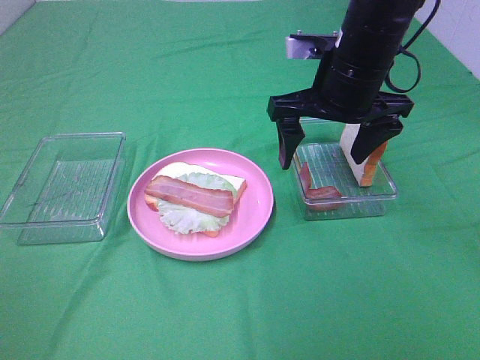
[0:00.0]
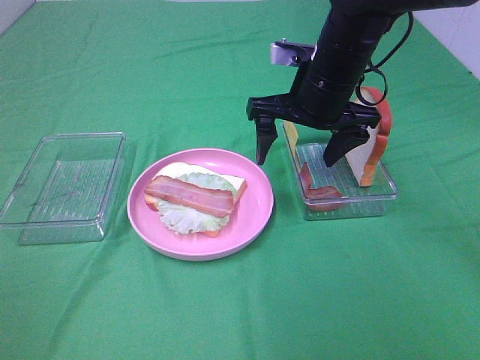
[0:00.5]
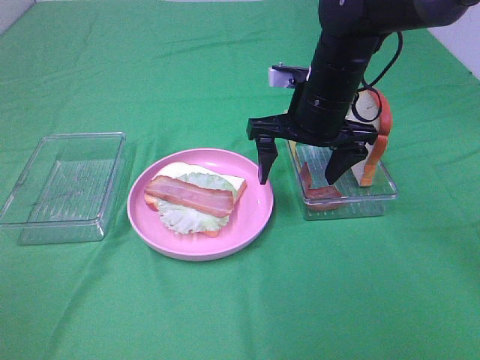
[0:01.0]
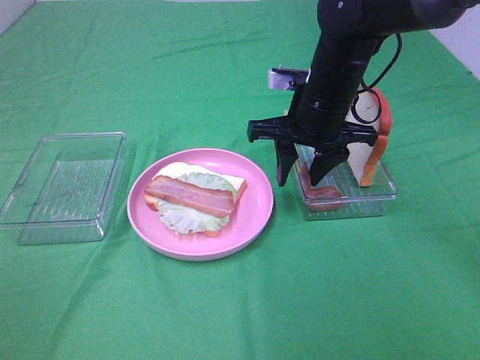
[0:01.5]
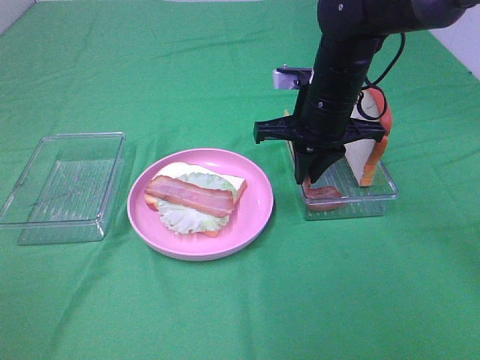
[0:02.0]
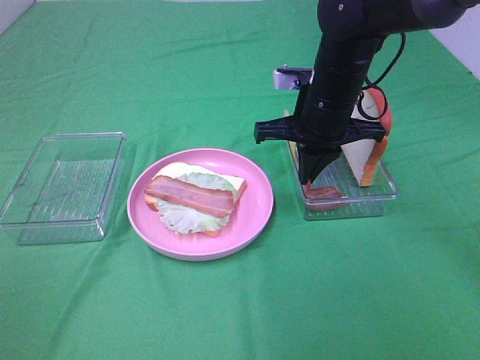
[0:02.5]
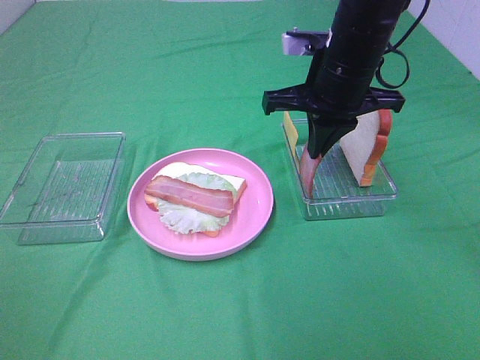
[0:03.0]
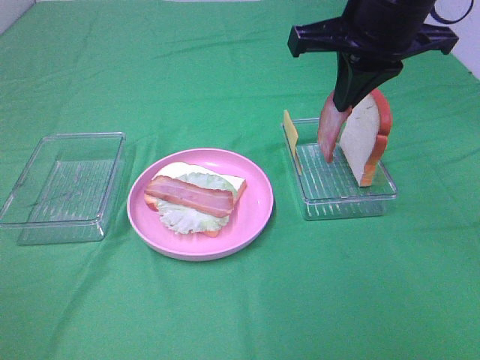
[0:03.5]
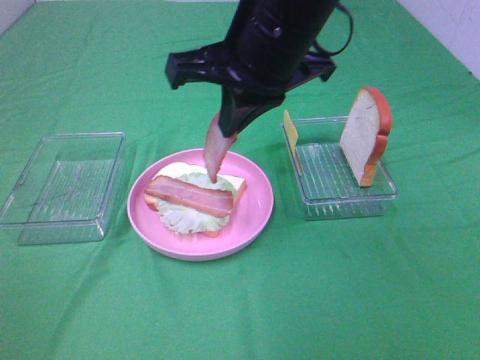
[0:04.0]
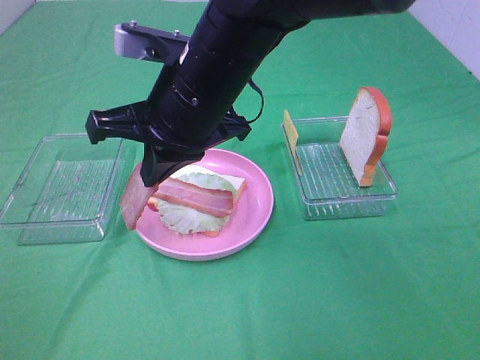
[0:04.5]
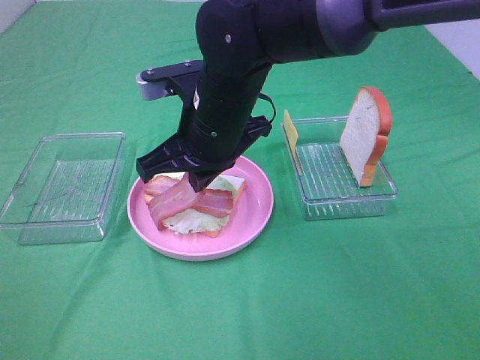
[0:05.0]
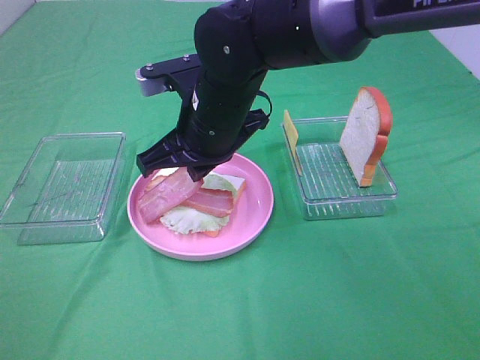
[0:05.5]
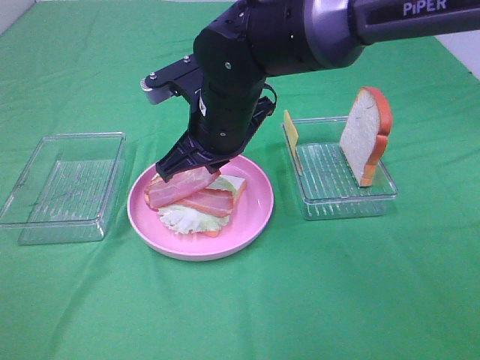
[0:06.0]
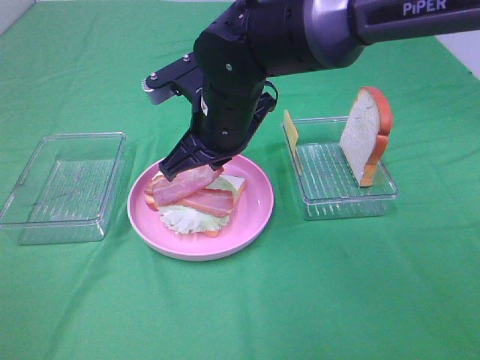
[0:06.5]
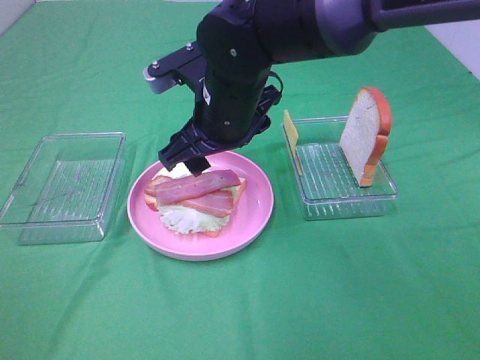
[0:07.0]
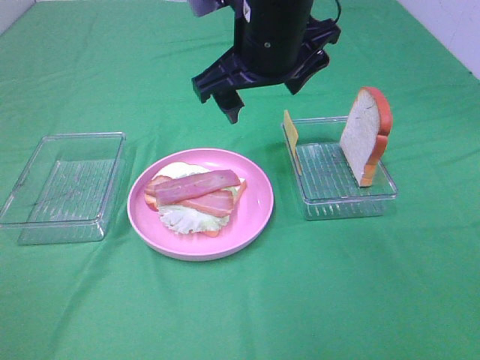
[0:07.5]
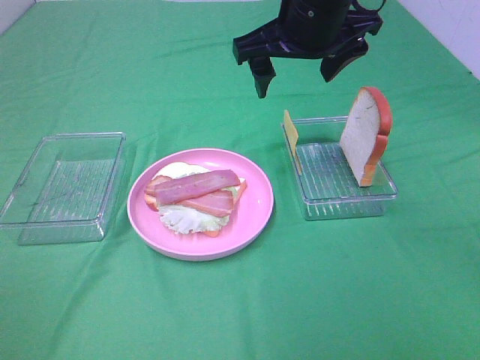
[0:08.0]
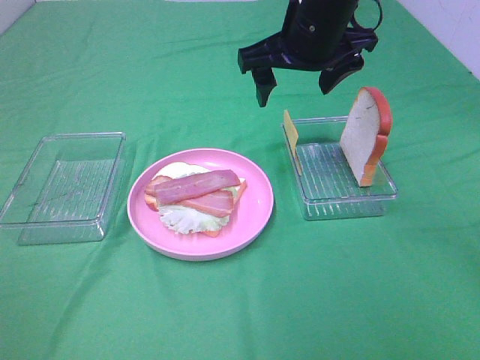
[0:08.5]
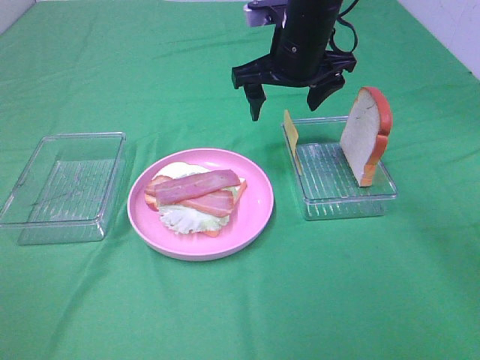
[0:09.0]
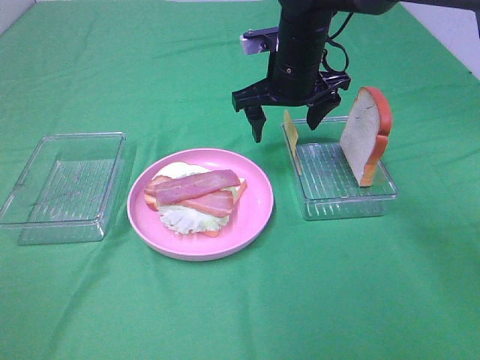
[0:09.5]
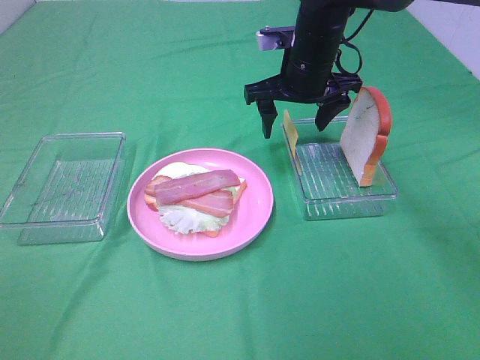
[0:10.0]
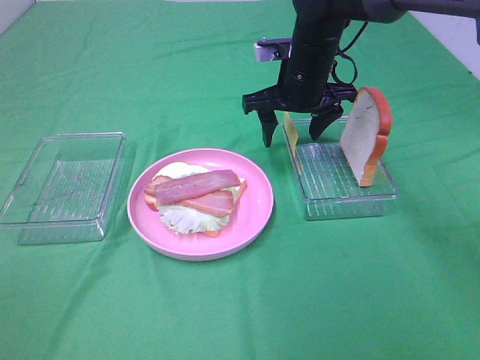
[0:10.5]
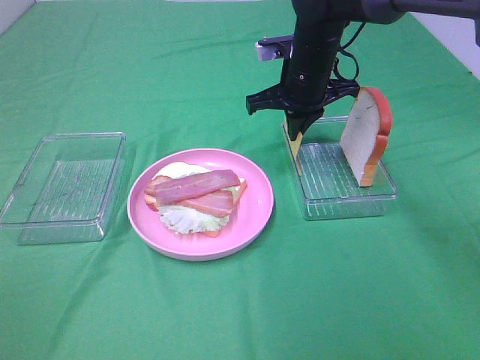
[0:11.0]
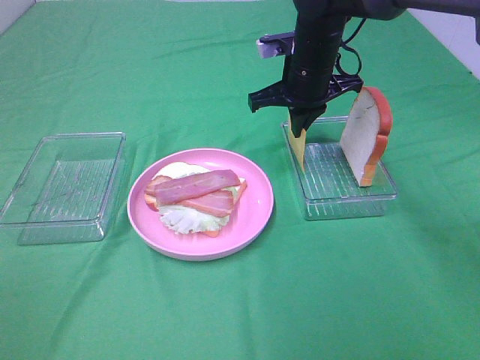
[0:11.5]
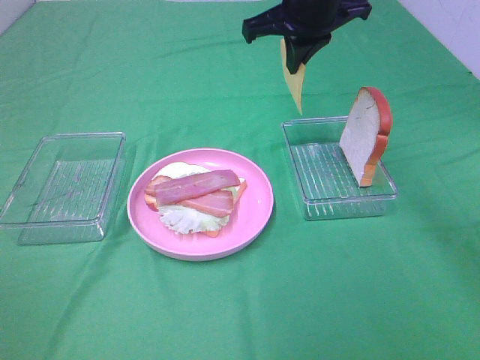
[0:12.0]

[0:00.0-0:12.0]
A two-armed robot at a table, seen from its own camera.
Task of the whole recording: Make sandwiches.
Step, 0:00.0 to 0:02.0: Right hand:grab the bacon.
Step, 0:02.5 to 0:06.5: Right hand:place bacon on bacon.
Step, 0:07.0 to 0:11.0: Right hand:grab the cheese slice.
0:00.0 to 0:02.0: The right gripper shifts about 5 cm downward, and closes.
0:02.0 to 0:04.0: The right gripper goes roughly 15 cm upward, to the left and backward.
0:04.0 to 0:06.0: The right gripper moves downward, approximately 10 cm.
0:06.0 to 0:08.0: The right gripper travels upward and to the right by roughly 15 cm, and opens its fingers.
0:08.0 to 0:10.0: The right gripper travels downward and forward by some 10 cm.
0:10.0 to 0:12.0: The right gripper travels upward by approximately 10 cm, and closes.

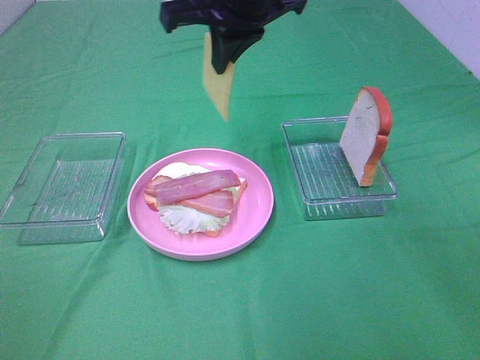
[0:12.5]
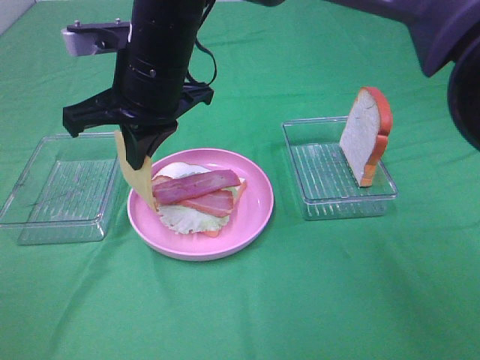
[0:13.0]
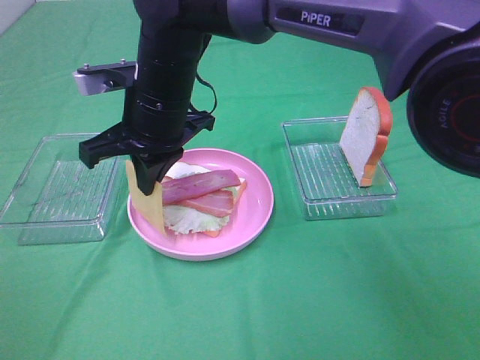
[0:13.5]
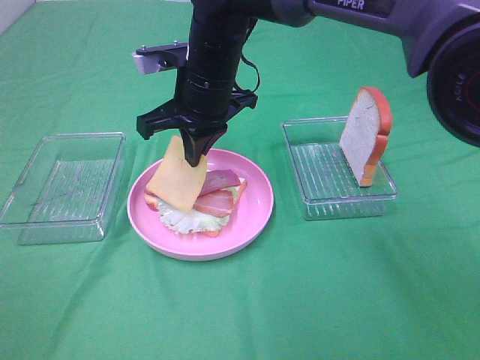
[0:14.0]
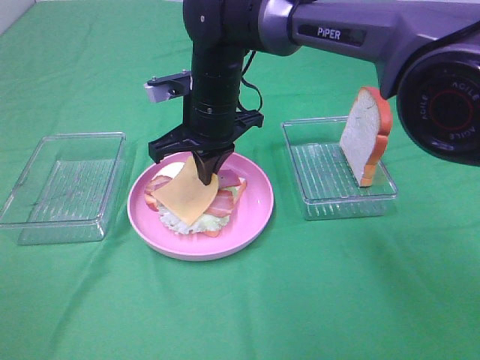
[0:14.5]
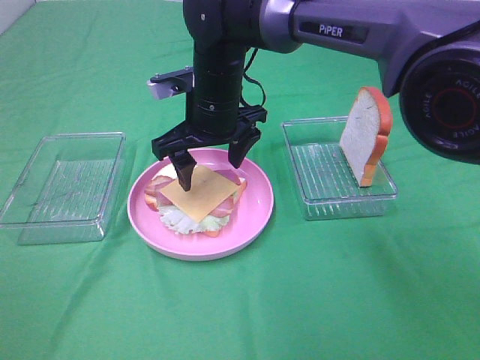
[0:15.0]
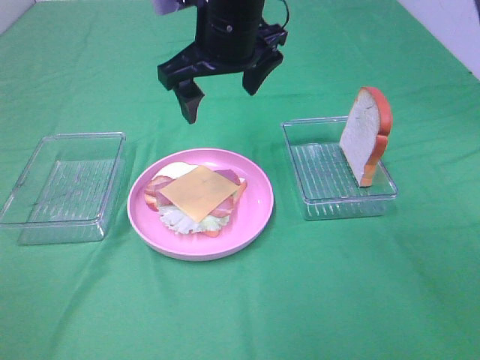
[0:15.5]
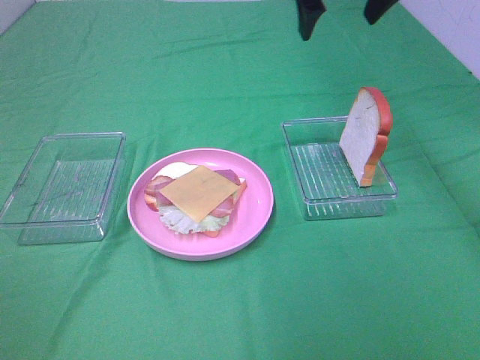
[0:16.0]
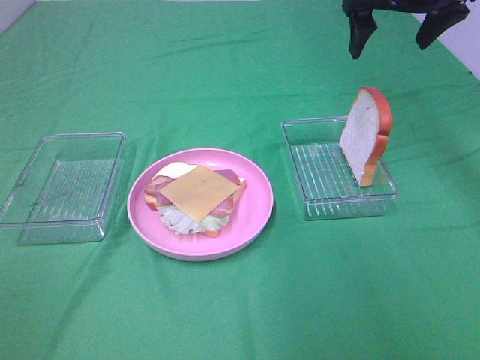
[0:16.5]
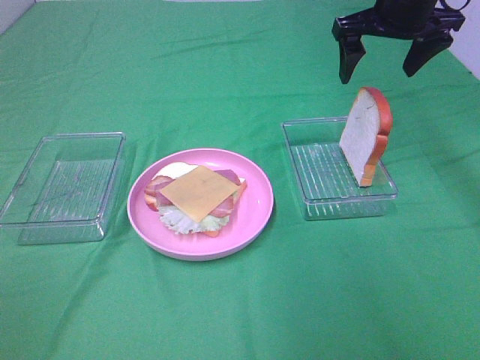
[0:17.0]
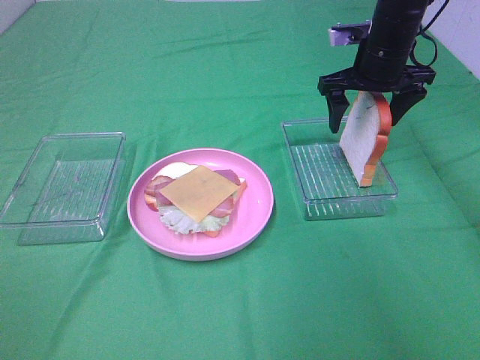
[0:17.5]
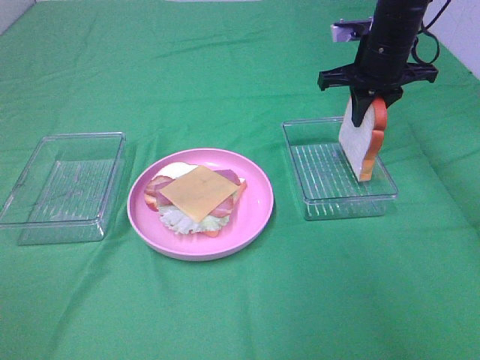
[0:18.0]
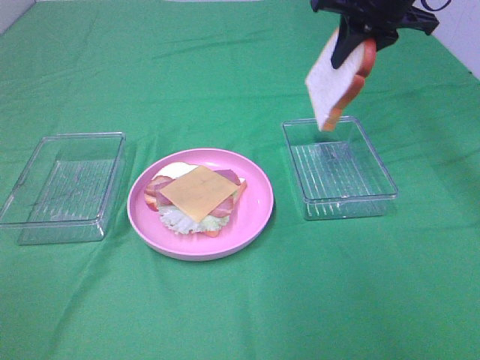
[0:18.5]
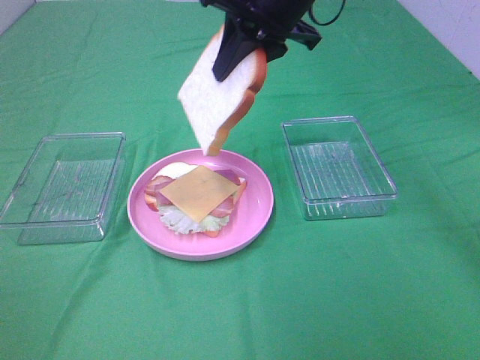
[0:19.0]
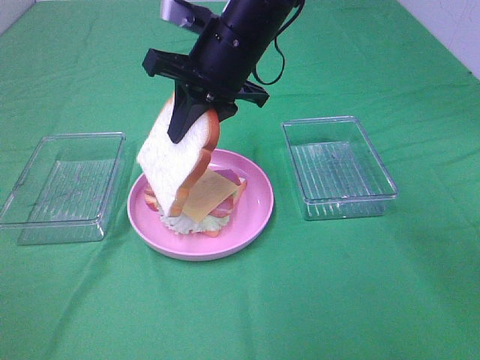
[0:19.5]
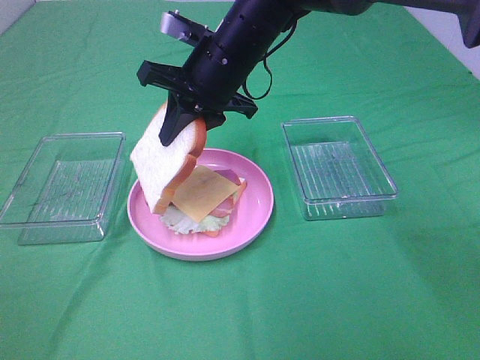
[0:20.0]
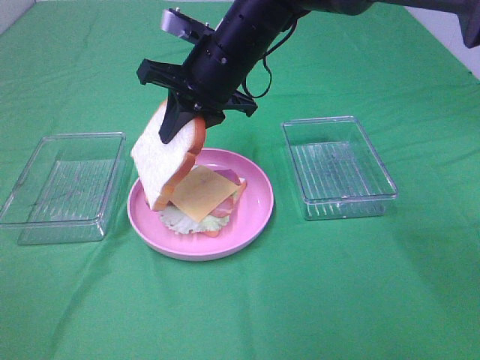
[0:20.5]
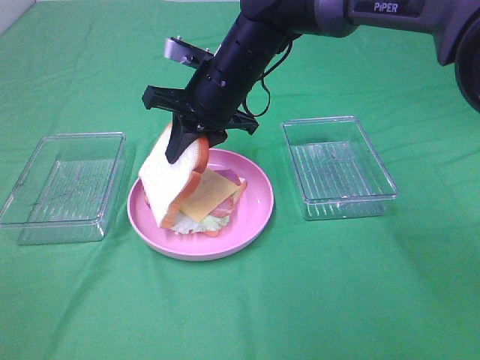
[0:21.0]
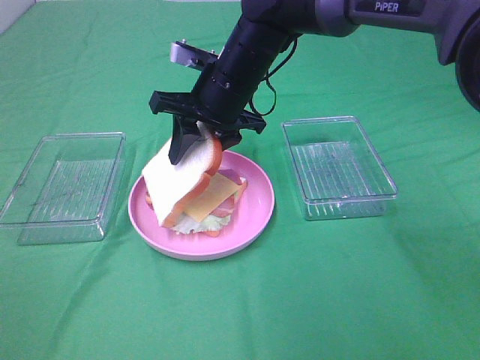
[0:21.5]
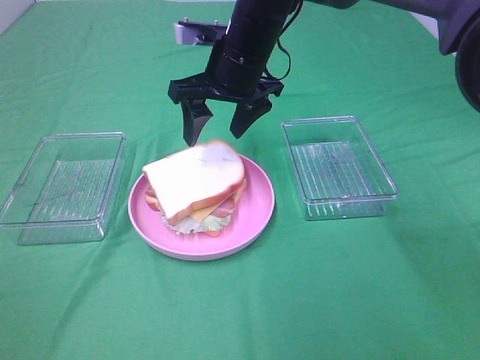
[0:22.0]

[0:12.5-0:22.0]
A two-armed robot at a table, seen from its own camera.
Task of the whole recording: Make sandwiches.
Step, 0:12.5 to 0:15.0: Right hand:place the cheese slice on top of the bacon.
Step, 0:15.5 to 0:17.5: Right hand:grab the bread slice.
0:12.5 to 0:14.5: The right gripper is displaced downward by approximately 15 cm.
0:14.5 to 0:16.5: The right gripper shifts about 25 cm to the right and upward, and opens its fingers.
0:16.5 to 0:18.0: The right gripper moves downward, about 10 cm, and closes up.
0:18.0 to 0:20.0: The right gripper is displaced to the left by about 20 cm.
0:20.0 to 0:22.0: The right gripper opens its fingers.

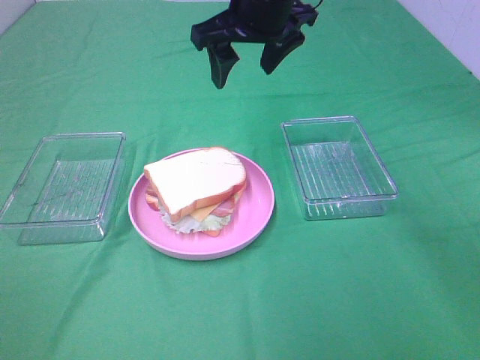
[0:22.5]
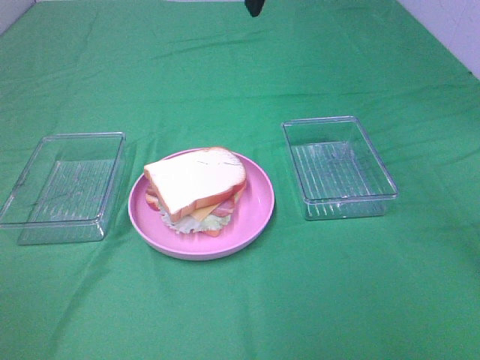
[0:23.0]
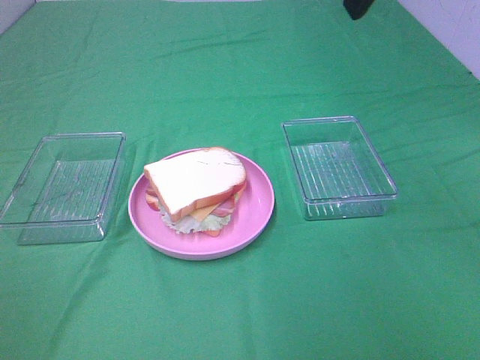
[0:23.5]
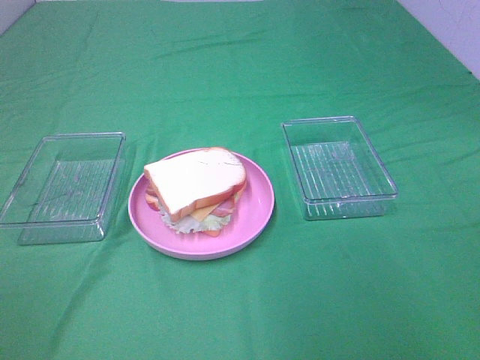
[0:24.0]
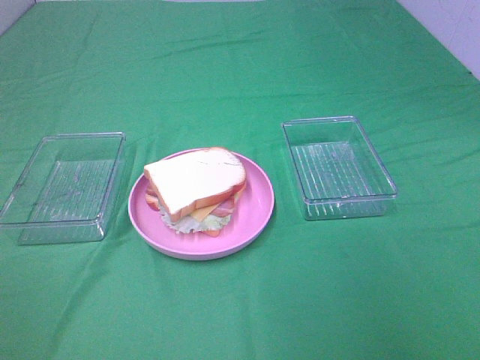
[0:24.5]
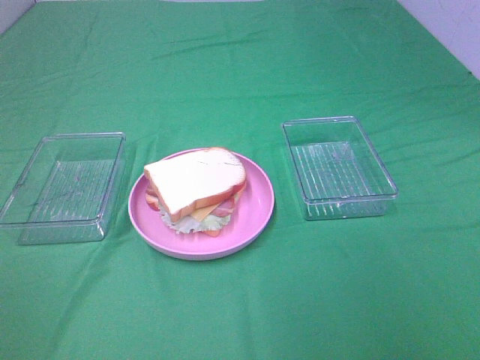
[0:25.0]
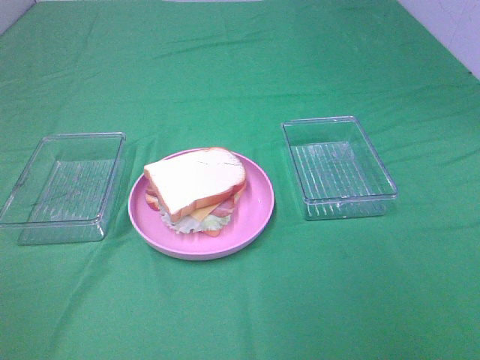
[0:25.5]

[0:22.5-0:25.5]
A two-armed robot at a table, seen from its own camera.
Task of the whole recording: Make sandwiches.
0:22.5 to 0:24.0: The right gripper shifts approximately 35 cm backward and to the right.

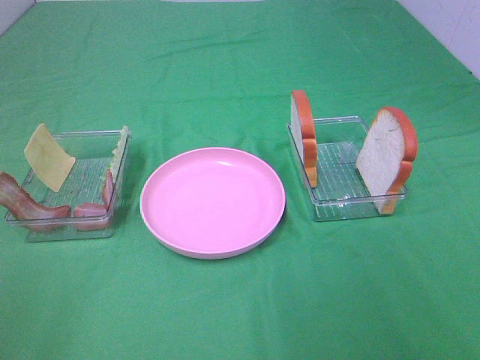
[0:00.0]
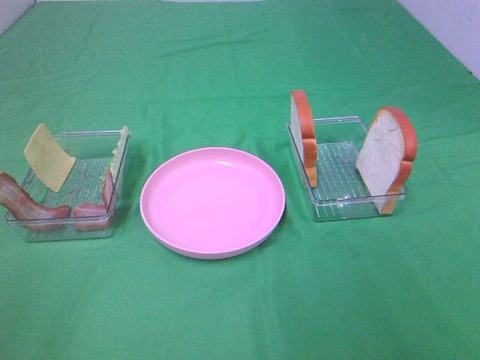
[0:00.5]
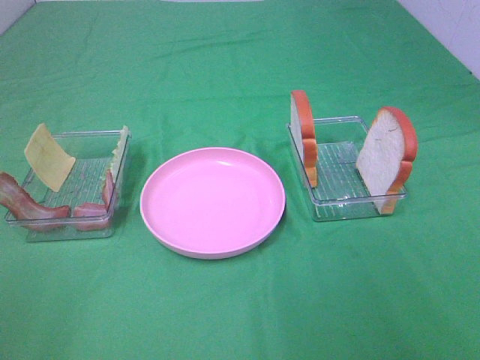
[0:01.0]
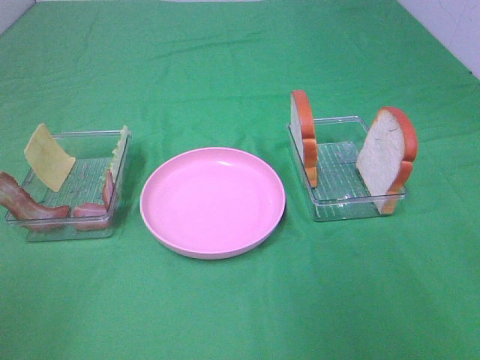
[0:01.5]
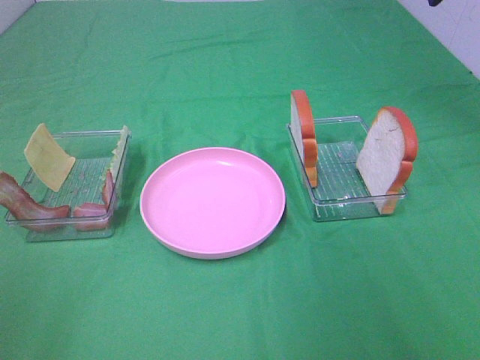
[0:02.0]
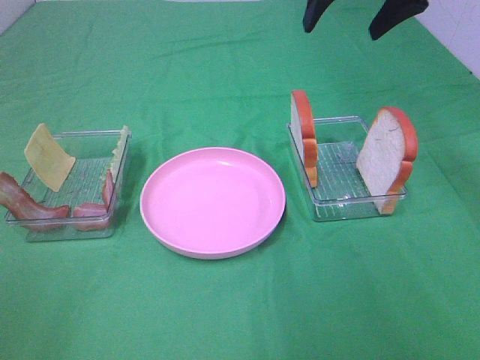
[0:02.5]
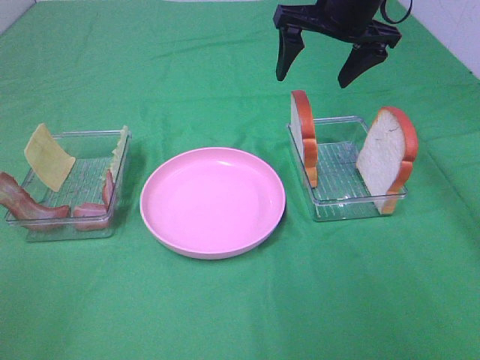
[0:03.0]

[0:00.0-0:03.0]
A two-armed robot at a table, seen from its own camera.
Task of the whole recording: Make sandwiches.
0:01.5 to 0:03.0: The right gripper travels forward and to the left by approximately 30 cm.
